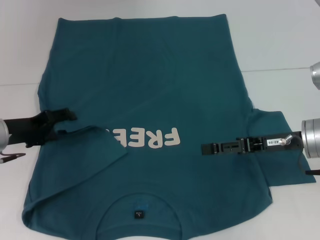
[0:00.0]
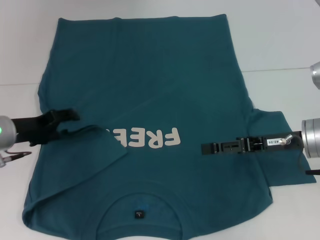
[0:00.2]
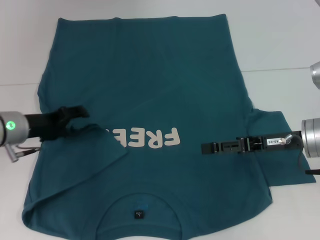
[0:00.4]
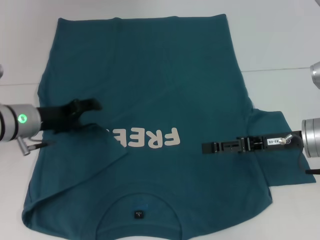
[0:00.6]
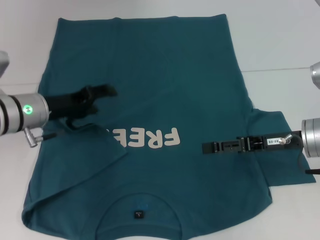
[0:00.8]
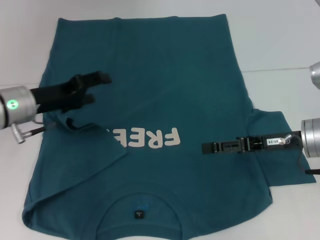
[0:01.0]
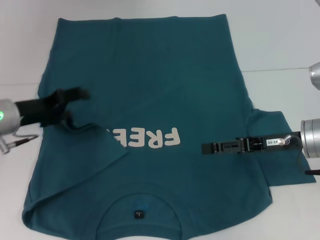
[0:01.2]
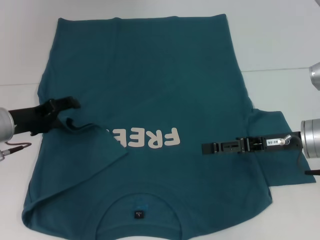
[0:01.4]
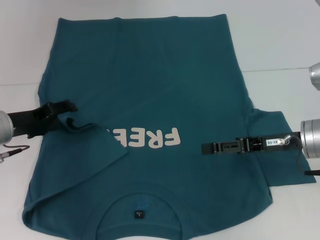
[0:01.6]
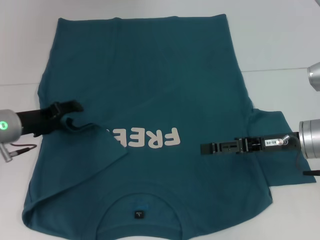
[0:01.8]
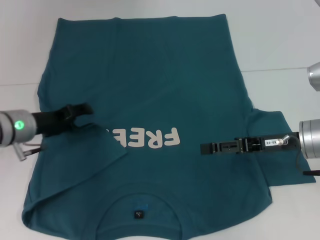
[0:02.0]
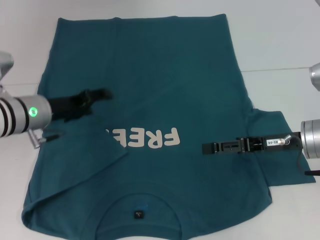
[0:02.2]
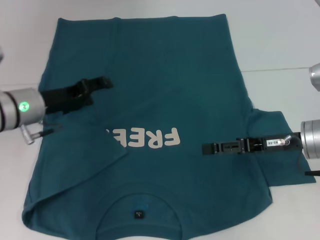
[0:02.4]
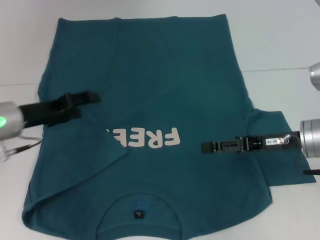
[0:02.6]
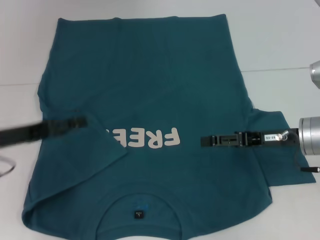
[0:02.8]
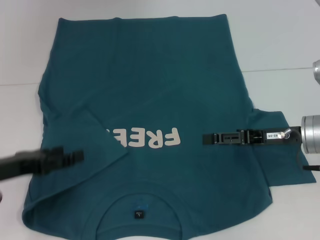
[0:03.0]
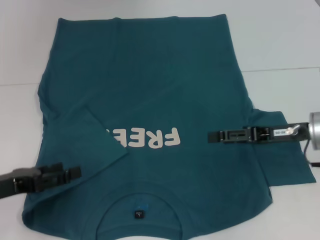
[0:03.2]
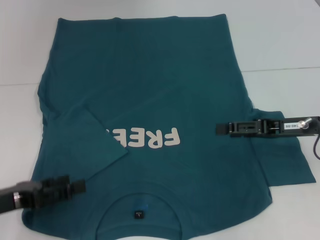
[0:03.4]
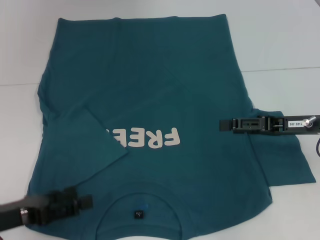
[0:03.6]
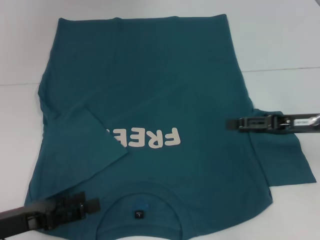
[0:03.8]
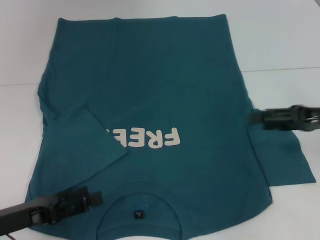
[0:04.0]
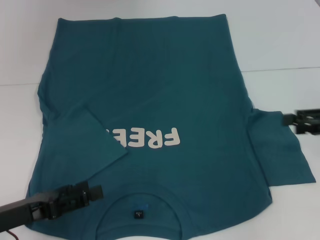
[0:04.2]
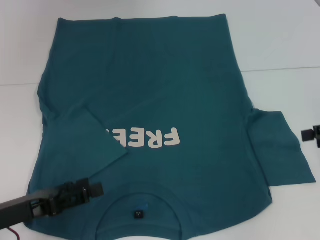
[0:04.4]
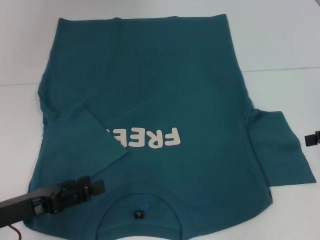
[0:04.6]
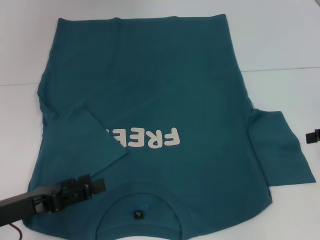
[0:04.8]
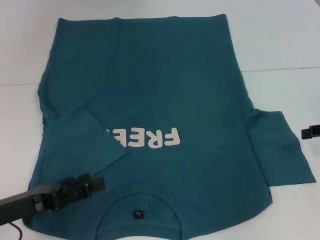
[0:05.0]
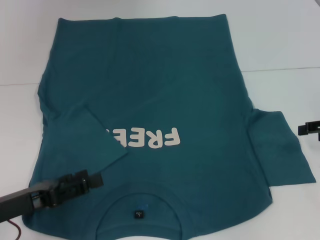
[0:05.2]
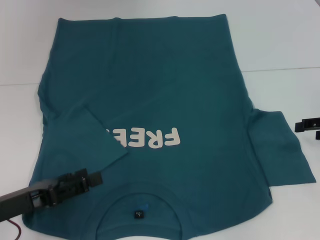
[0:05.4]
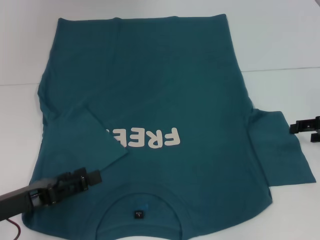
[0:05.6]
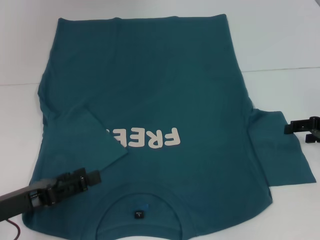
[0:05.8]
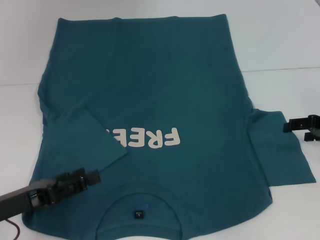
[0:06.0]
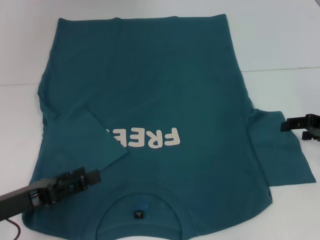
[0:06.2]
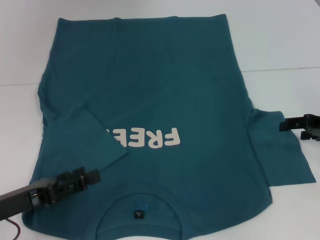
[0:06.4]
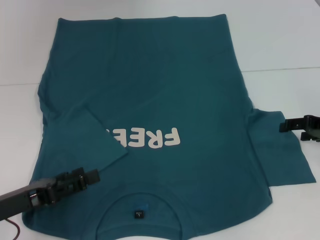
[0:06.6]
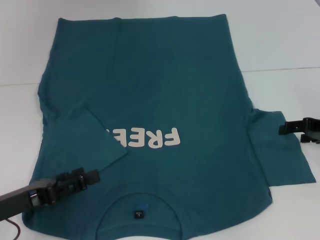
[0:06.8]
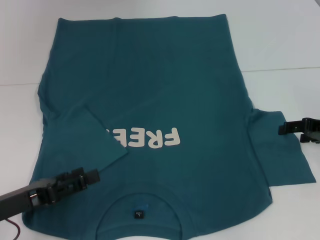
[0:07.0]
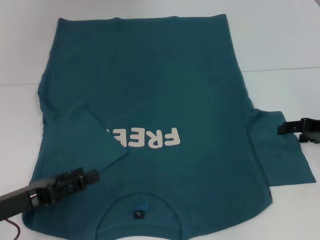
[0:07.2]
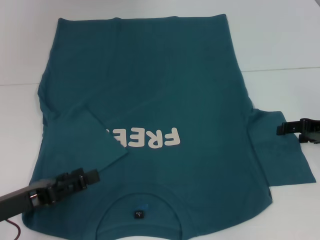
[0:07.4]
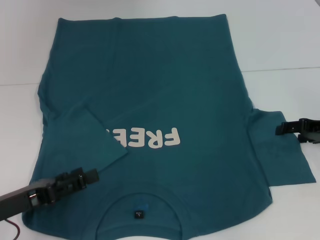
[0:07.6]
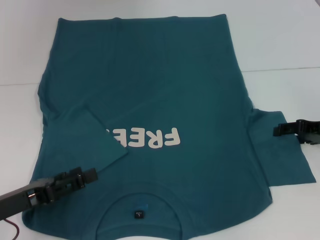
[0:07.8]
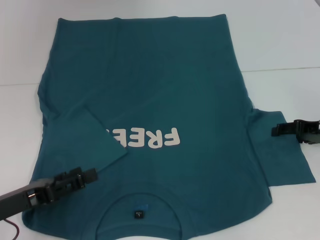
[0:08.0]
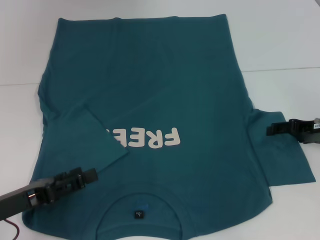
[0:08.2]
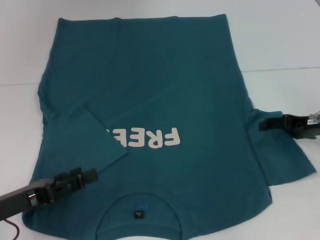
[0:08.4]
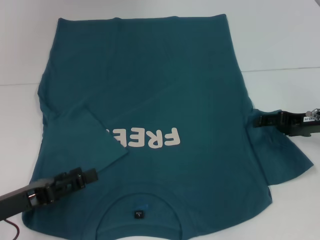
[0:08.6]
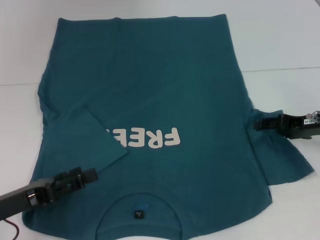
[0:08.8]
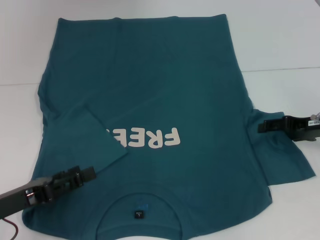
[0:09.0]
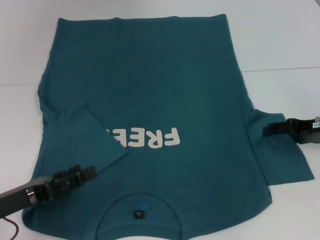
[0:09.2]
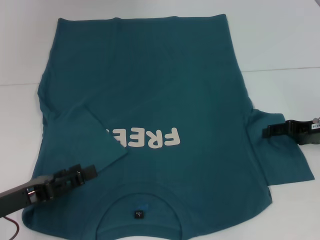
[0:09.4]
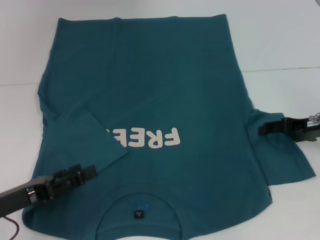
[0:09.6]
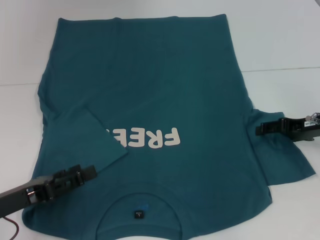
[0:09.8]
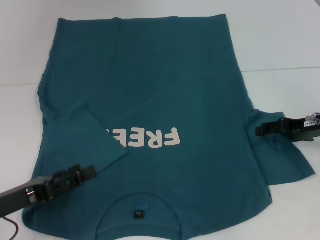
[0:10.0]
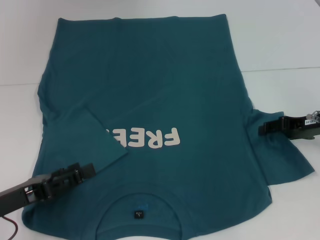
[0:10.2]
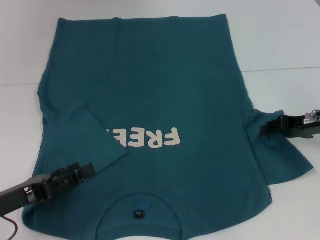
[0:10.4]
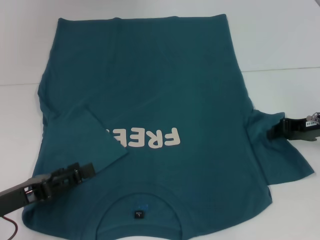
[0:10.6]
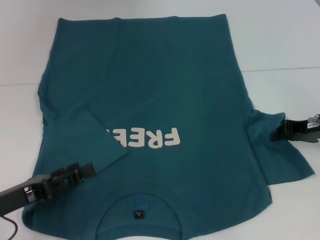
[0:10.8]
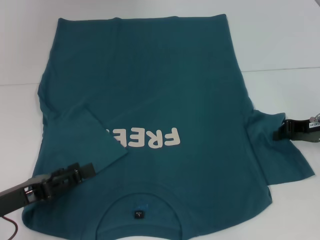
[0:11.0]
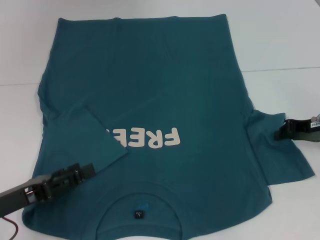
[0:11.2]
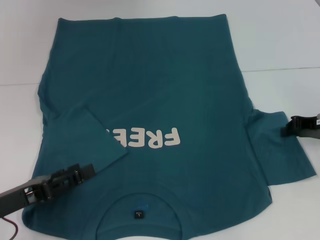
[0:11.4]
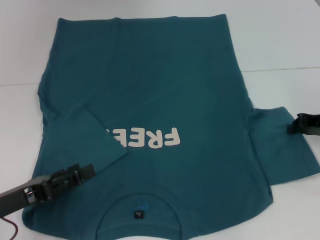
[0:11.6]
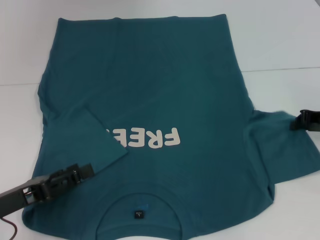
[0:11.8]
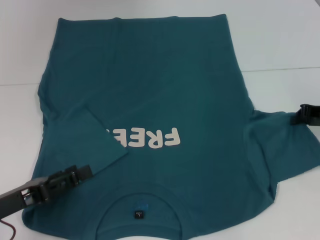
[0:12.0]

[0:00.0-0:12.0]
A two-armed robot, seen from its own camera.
Step, 0:00.0 to 0:03.0: Fold the bottom left sleeve with your left hand.
0:01.6 to 0:03.0: The left gripper moves backward, roughly 10 cm.
0:03.0 to 0:04.4: The left gripper heads backward, covering approximately 5 cm. The right gripper is displaced to the right by roughly 15 cm.
0:04.4 to 0:06.0: The right gripper is displaced downward by some 5 cm.
0:07.6 to 0:09.0: The grippers move only a little.
0:09.0 to 0:10.4: Neither gripper changes place.
0:10.4 to 0:12.0: The right gripper closes.

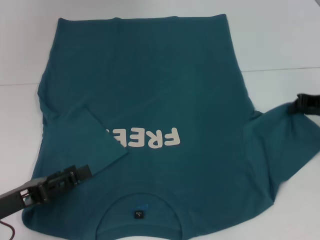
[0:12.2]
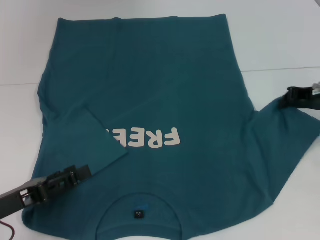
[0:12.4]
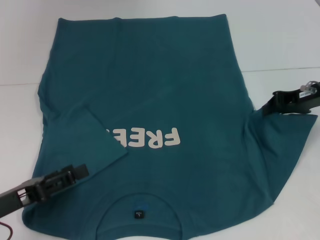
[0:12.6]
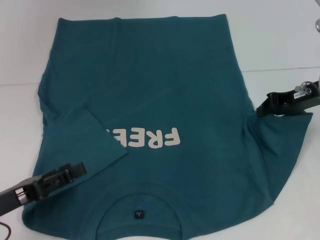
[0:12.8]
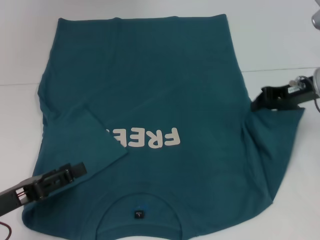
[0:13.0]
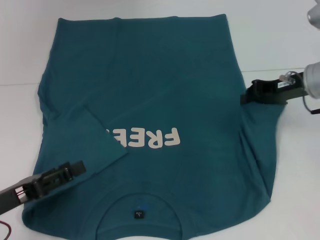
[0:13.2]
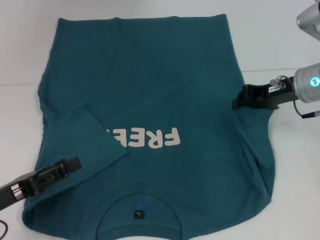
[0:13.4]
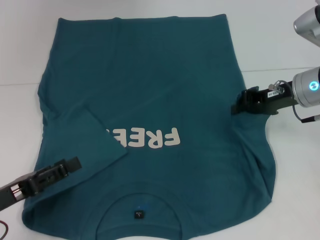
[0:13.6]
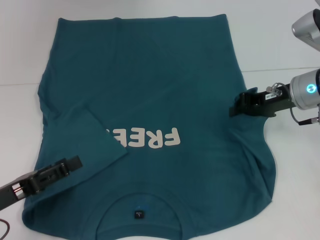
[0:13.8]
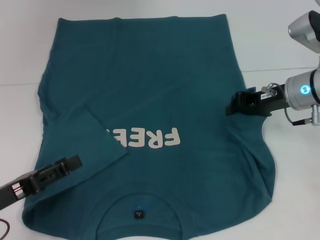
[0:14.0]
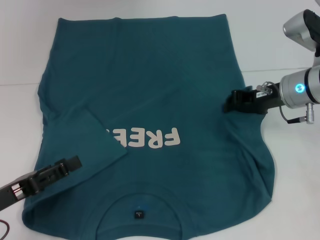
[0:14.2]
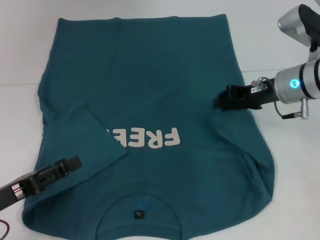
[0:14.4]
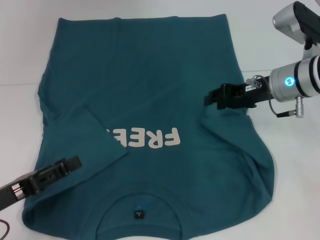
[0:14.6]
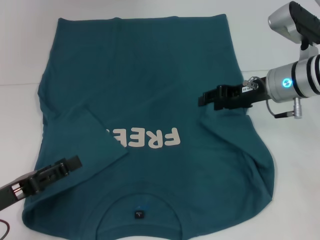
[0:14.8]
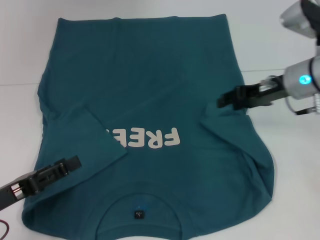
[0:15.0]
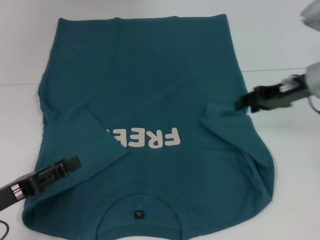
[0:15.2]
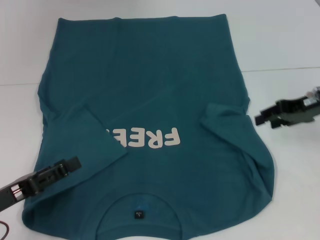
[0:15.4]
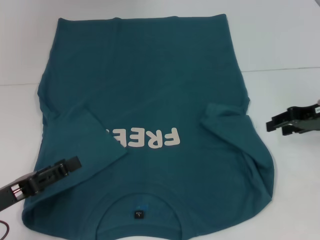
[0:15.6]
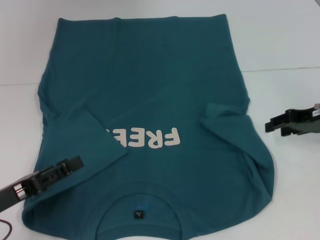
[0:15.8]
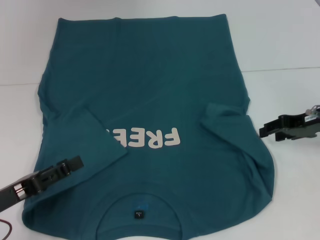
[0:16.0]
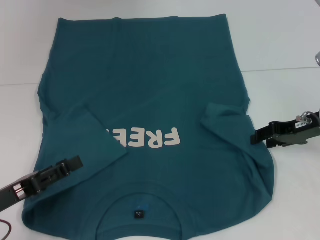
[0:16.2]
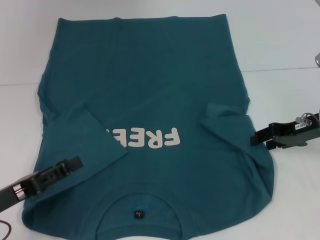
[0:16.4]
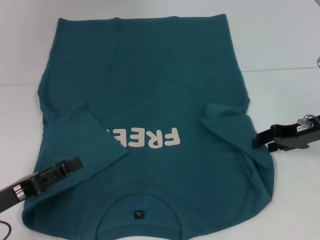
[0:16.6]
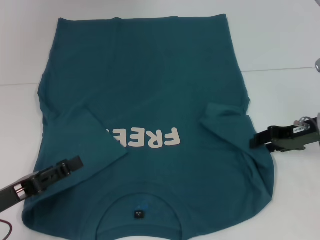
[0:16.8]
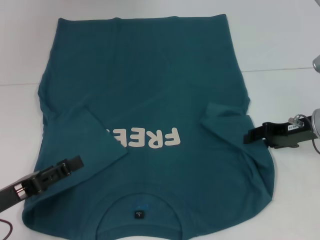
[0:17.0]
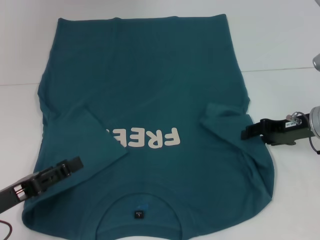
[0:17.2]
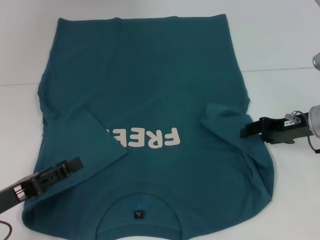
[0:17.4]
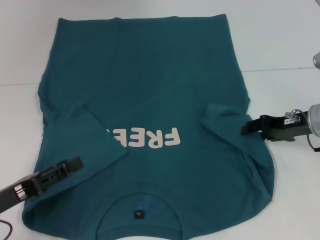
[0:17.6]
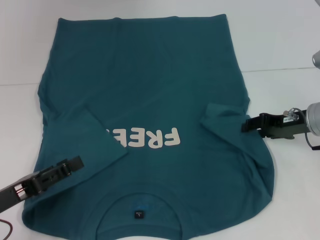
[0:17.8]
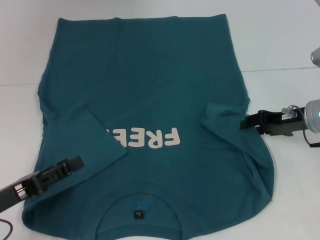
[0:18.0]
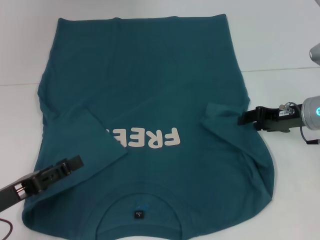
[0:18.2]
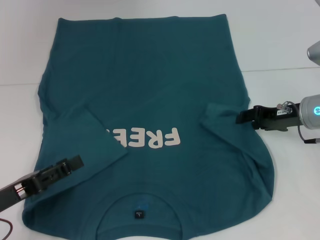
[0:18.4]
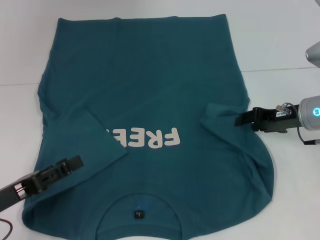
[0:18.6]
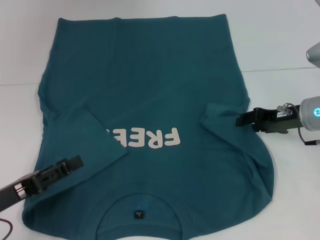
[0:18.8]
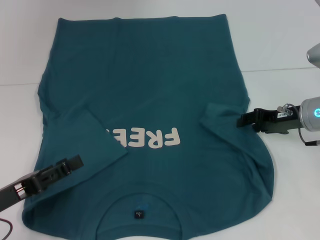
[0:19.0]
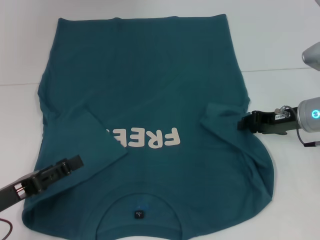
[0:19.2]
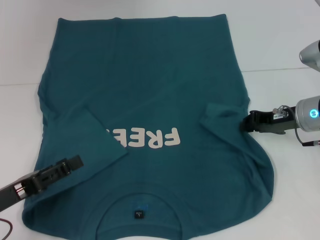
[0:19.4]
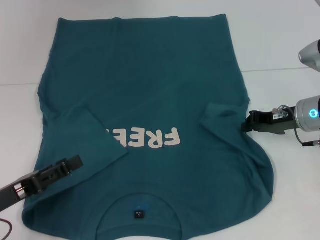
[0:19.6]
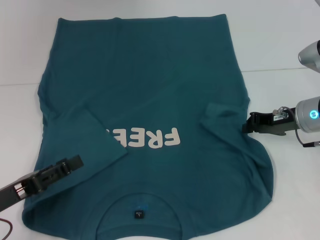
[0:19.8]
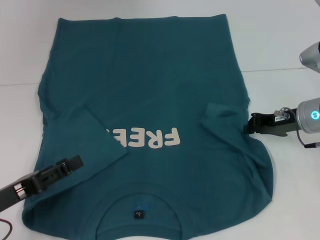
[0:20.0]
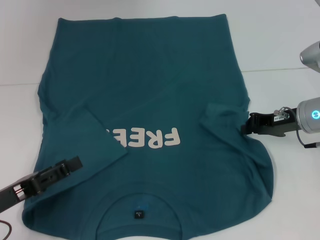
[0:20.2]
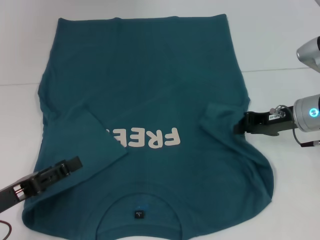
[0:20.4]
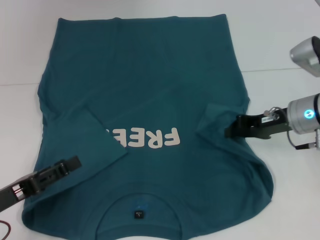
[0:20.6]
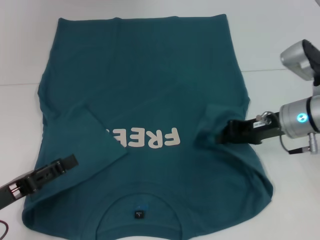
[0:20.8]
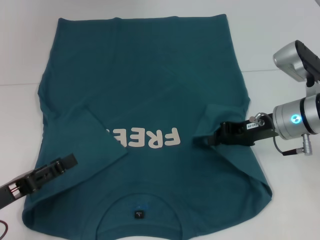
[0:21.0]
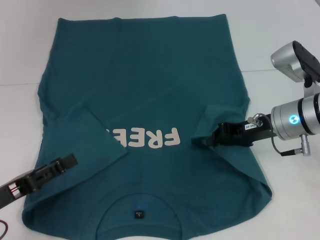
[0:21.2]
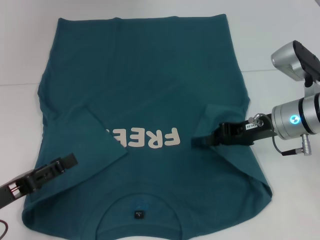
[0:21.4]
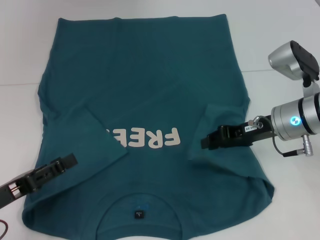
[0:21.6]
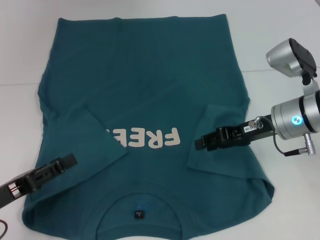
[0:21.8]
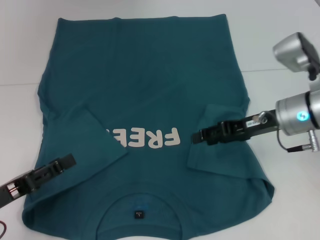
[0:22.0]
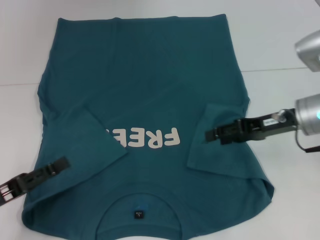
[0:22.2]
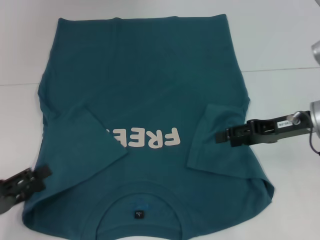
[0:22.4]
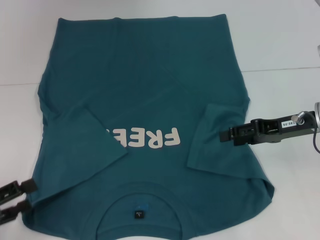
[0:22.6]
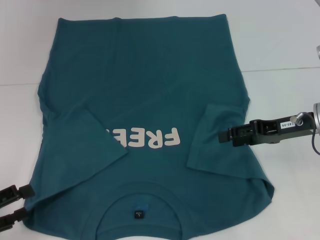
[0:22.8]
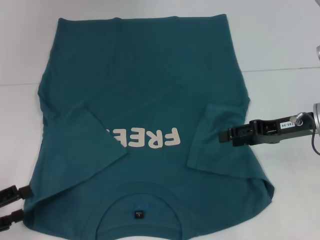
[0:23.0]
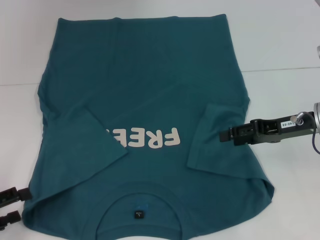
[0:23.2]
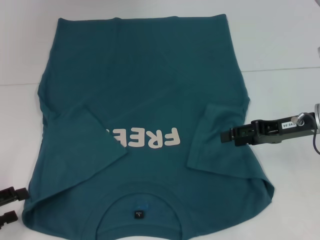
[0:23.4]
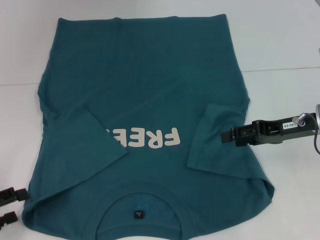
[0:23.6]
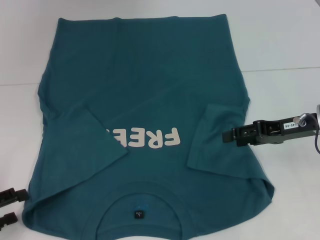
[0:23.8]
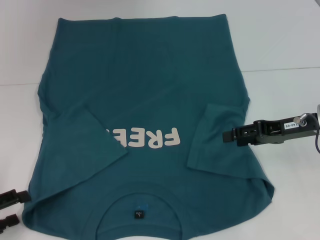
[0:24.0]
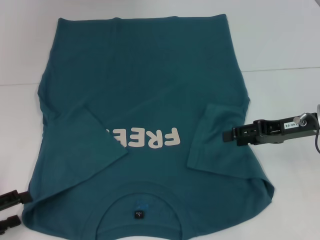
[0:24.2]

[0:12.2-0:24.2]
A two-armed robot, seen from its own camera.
Step, 0:12.2 to 0:22.4: Fold the bottom right sleeve to the right.
0:12.2 to 0:13.8: The right gripper heads to the left, covering some 10 cm.
0:13.8 to 0:15.2: The right gripper opens its fingers.
0:15.2 to 0:16.6: The right gripper shifts about 5 cm downward.
0:16.6 to 0:18.2: The grippers move only a little.
0:18.2 to 0:19.8: The right gripper closes up.
0:19.8 to 0:21.2: The grippers make only small movements.
0:21.2 to 0:22.6: The right gripper travels to the right by about 5 cm, and opens its fingers. Meanwhile the left gripper is displaced to the left by about 5 cm.
0:22.6 to 0:24.2: There are only small adjustments of the grippers.
